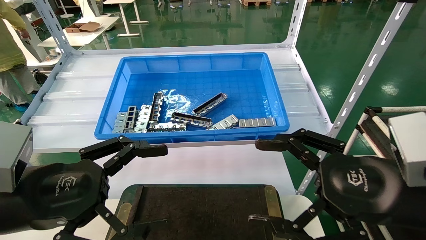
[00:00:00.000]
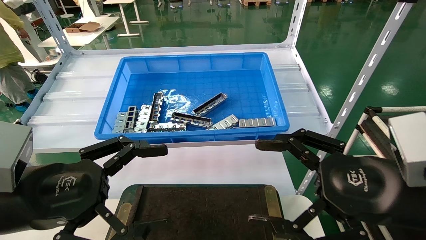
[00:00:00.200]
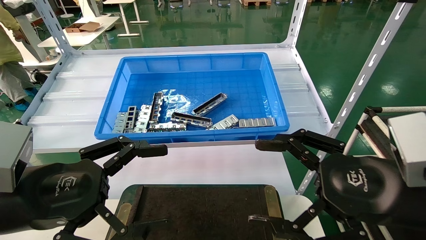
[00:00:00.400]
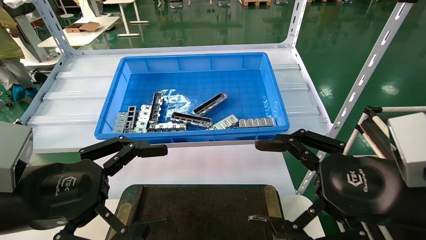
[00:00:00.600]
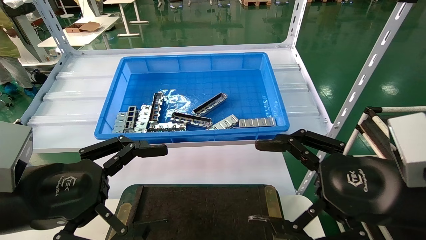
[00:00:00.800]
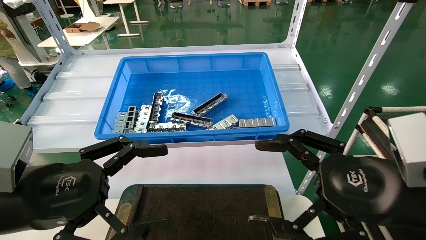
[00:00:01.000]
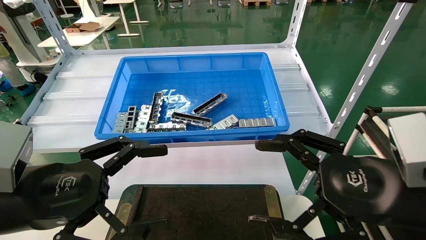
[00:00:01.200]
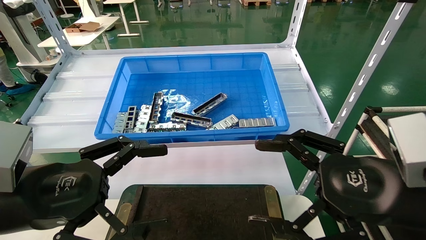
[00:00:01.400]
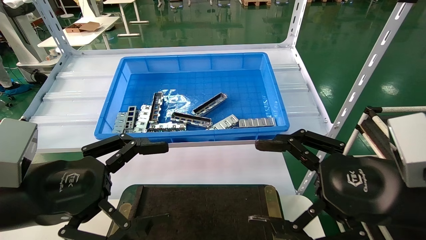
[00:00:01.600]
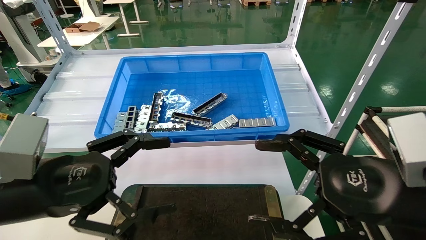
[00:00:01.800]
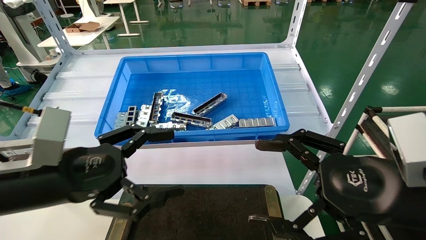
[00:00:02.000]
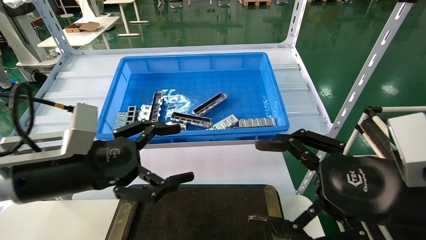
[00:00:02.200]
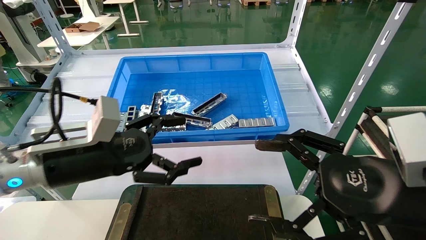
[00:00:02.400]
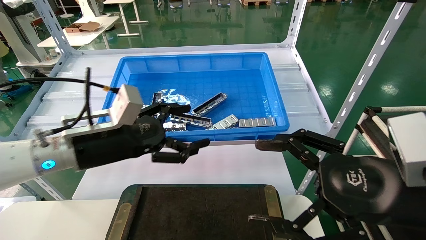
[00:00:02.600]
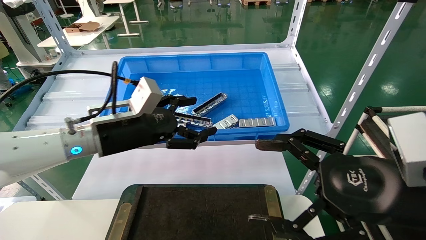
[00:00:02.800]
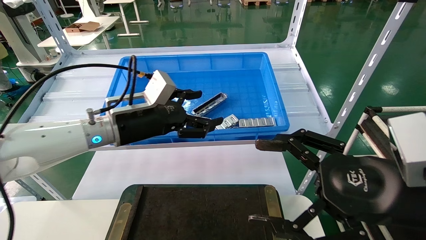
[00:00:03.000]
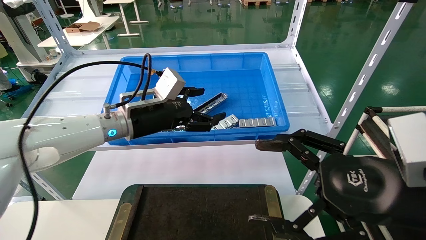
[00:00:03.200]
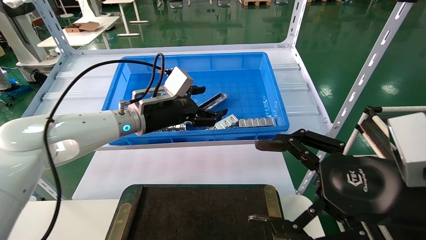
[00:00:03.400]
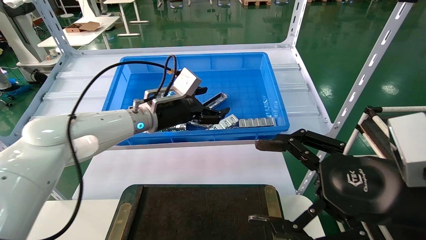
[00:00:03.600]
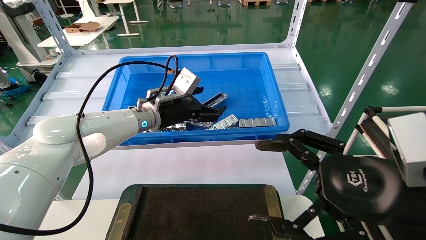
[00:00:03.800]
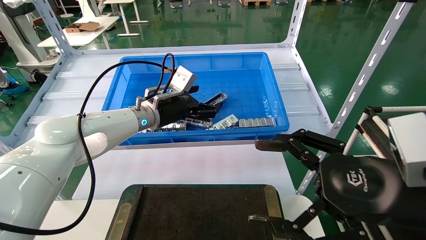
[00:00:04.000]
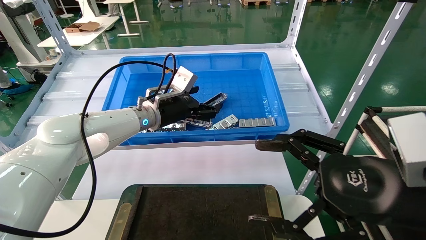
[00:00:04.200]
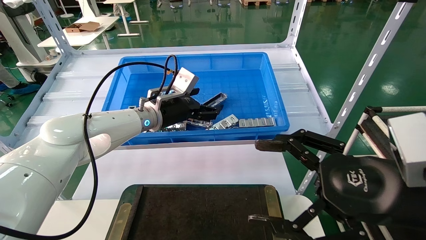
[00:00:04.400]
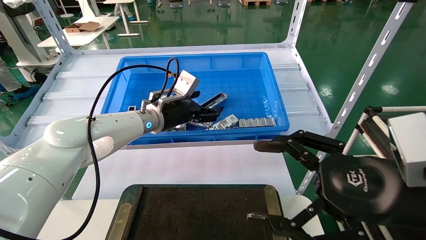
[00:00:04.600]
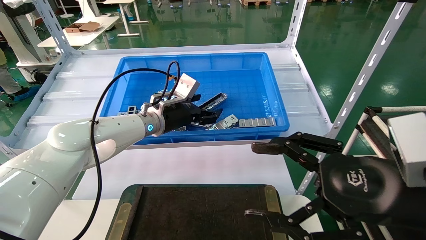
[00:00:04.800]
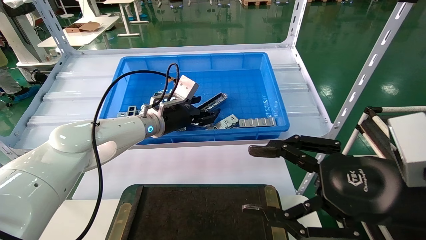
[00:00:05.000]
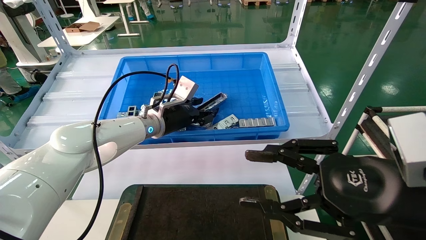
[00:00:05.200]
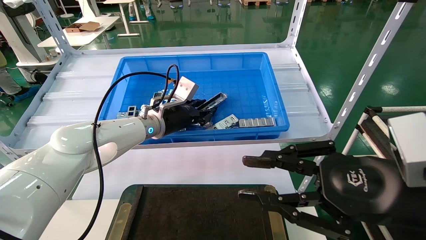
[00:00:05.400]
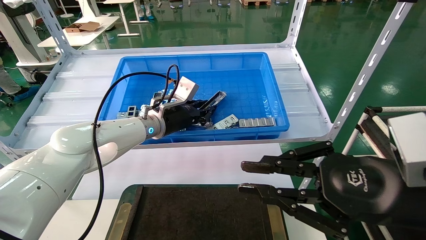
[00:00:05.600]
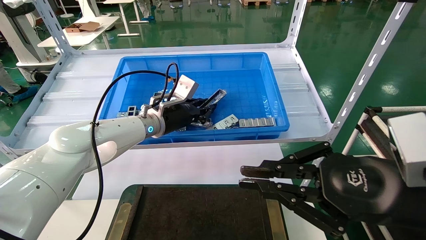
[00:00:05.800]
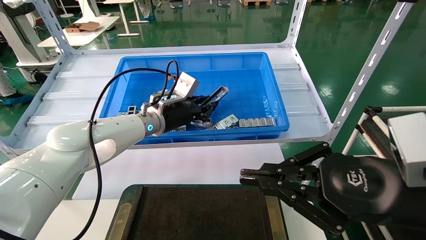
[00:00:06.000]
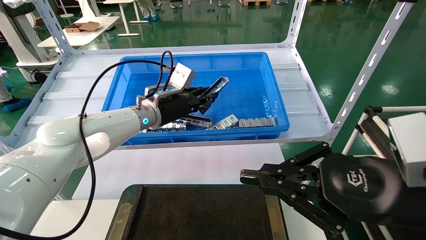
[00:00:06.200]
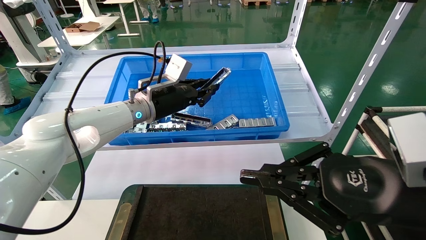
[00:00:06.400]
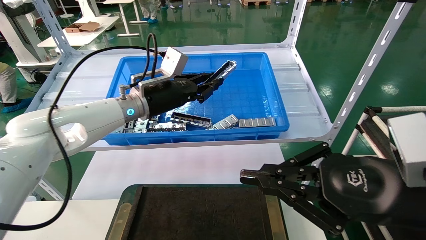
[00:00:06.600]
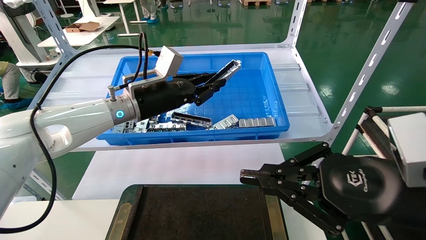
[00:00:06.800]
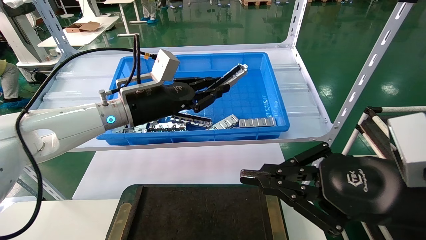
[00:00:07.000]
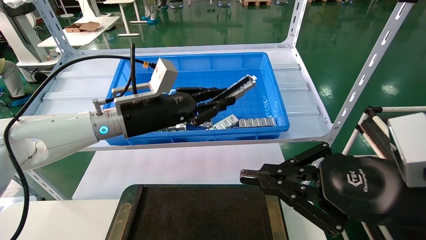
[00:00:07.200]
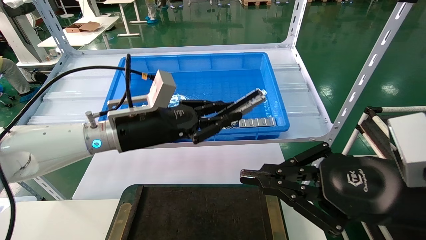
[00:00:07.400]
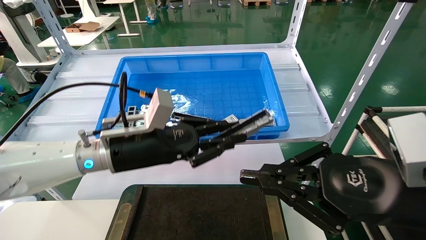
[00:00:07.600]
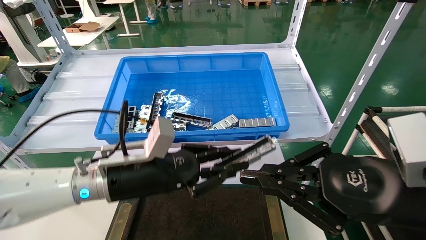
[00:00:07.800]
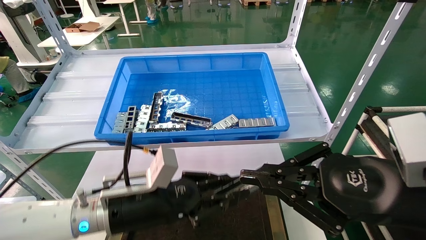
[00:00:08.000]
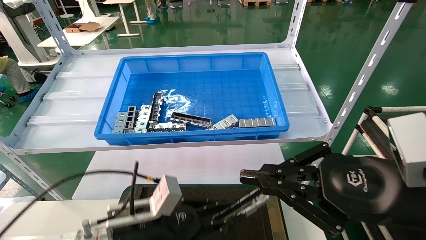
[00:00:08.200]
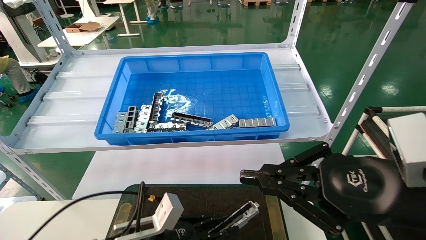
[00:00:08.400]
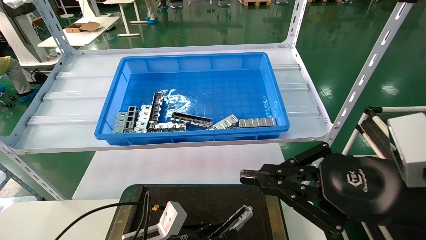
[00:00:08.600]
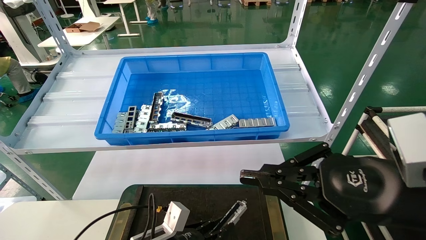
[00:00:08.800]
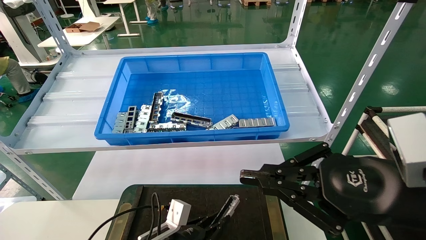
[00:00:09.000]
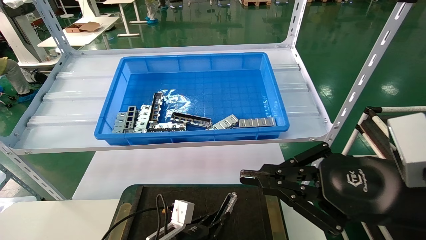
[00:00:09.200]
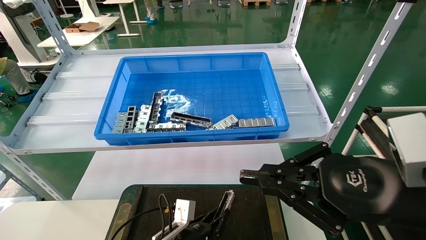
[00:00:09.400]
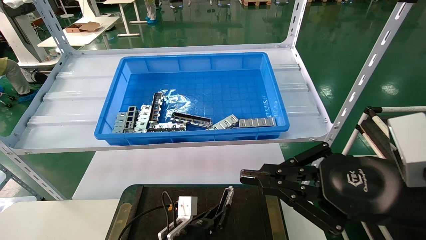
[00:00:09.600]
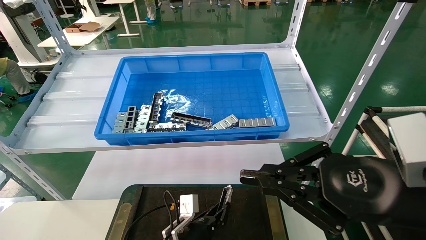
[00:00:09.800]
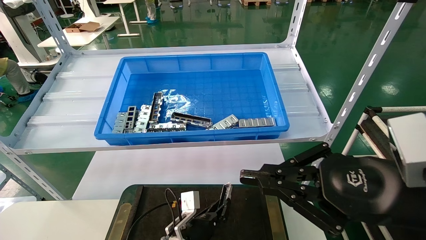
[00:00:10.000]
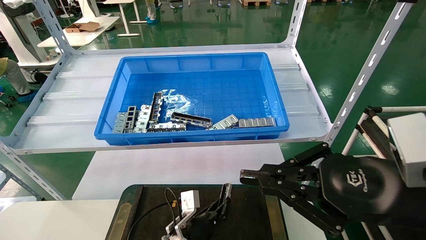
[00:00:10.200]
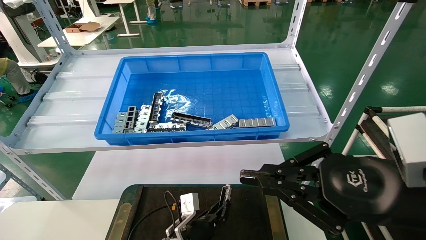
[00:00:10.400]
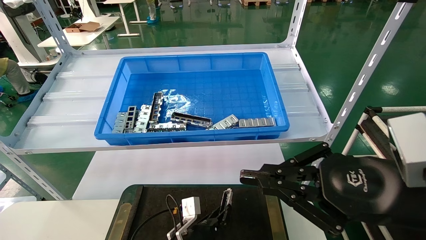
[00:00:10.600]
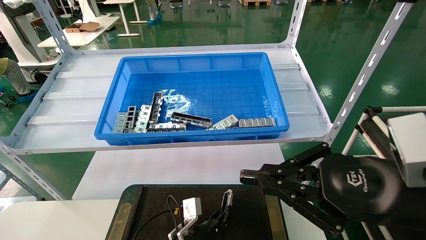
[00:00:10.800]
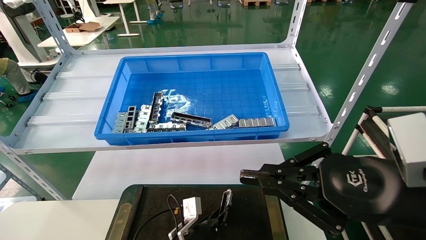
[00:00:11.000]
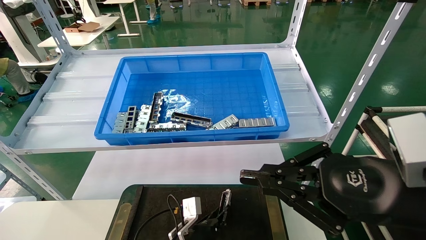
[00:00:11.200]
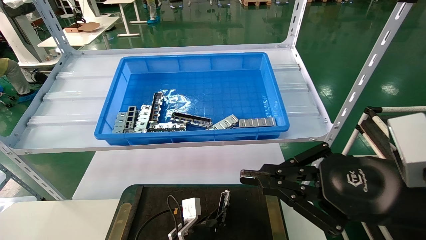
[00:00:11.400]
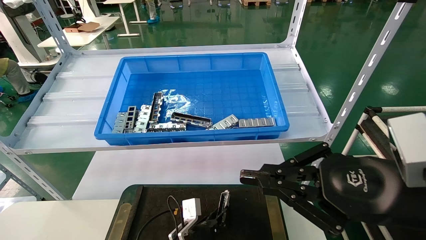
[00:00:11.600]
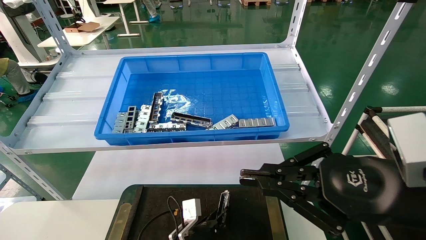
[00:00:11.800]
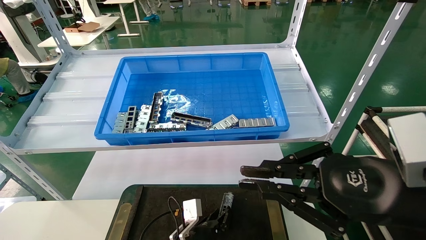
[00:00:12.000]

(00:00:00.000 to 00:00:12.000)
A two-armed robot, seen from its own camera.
Task of the whole recording: Grasp the part with one hand and place it on the black container.
Step, 00:00:02.000 - 00:00:05.600: Pick up the front USB bracket from the feeding area.
Step, 00:00:05.800 - 00:00:11.800: Place the front USB bracket into the box.
00:00:00.000 - 00:00:01.600: Neither gripper changes place.
00:00:01.600 - 00:00:03.000: The left gripper is displaced forward and to the right by approximately 20 cm.
00:00:03.000 - 00:00:04.400: The left gripper is displaced forward by approximately 10 cm.
00:00:04.400 - 00:00:06.000: The right gripper closes its fingers, while the left gripper closes its fingers.
00:00:06.000 - 00:00:07.600: The left gripper travels backward by about 15 cm.
00:00:07.600 - 00:00:09.000: The left gripper is displaced downward by approximately 25 cm.
00:00:09.000 - 00:00:10.400: The left gripper is displaced forward and to the right by about 10 cm.
00:00:10.400 - 00:00:12.000: The grippers move only a little.

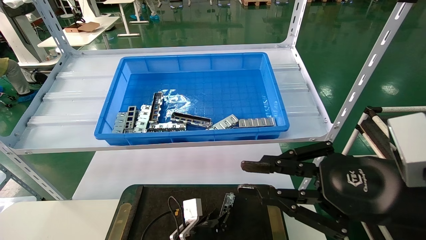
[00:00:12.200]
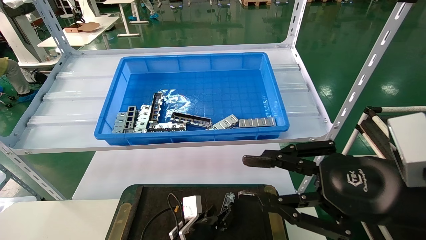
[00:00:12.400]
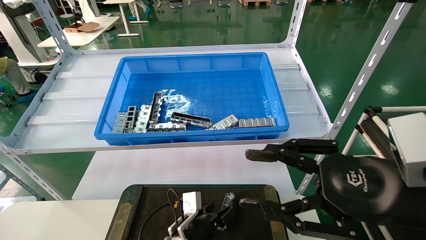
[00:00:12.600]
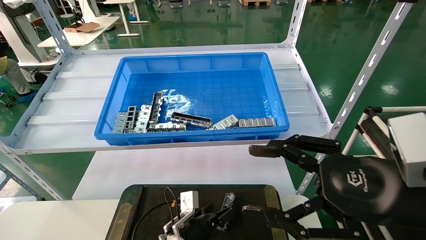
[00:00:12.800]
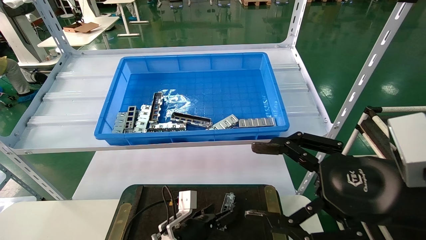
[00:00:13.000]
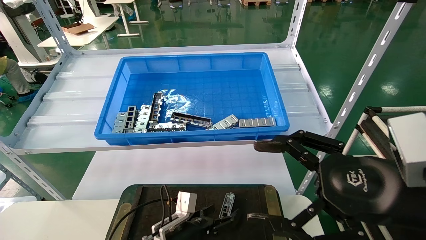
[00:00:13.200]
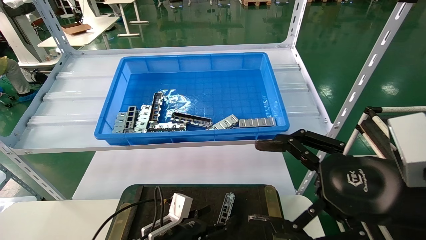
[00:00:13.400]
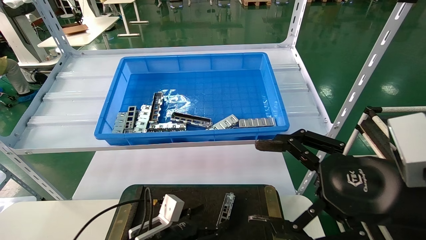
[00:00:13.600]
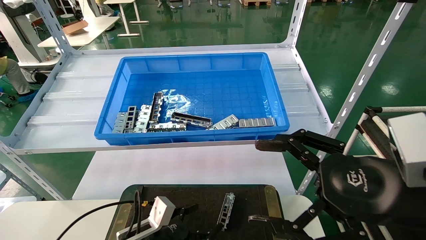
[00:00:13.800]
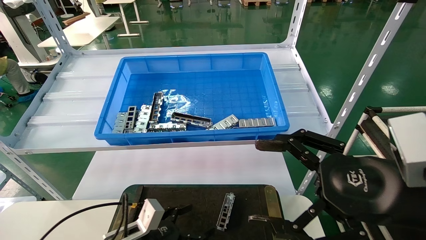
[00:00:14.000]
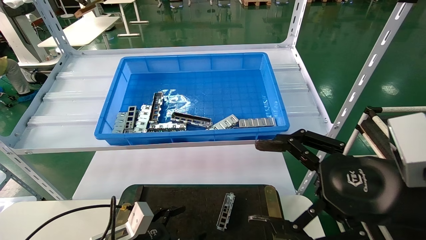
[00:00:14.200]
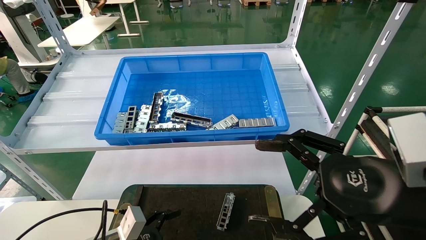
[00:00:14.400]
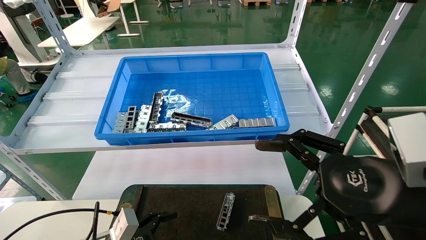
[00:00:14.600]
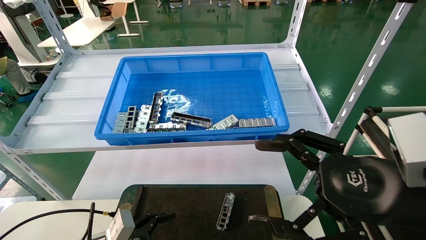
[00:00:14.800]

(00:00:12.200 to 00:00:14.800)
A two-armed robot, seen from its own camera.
Task of the whole recording: Grasp the part with one hand and place it on the black container.
00:00:12.200 - 00:00:13.400: The right gripper opens its fingers. Meanwhile the left gripper moves to the left, approximately 5 cm, and opens.
00:00:13.400 - 00:00:14.800: The left gripper heads to the left and backward, covering approximately 15 cm.
